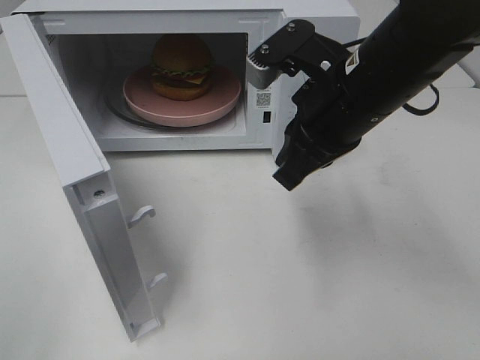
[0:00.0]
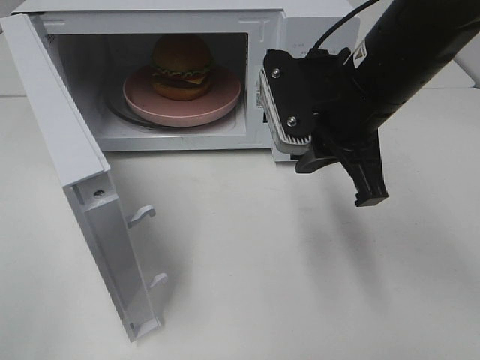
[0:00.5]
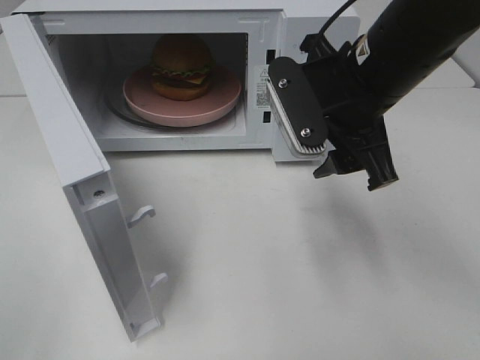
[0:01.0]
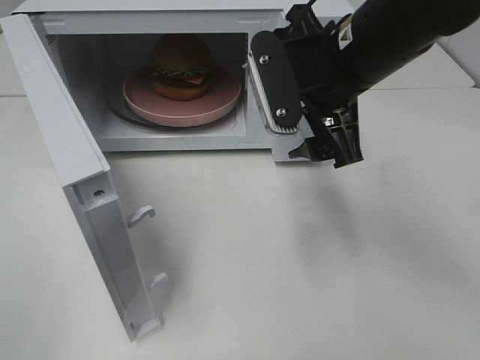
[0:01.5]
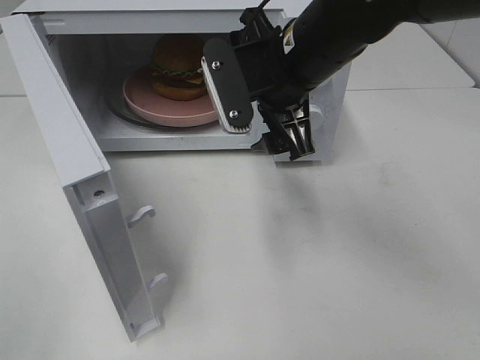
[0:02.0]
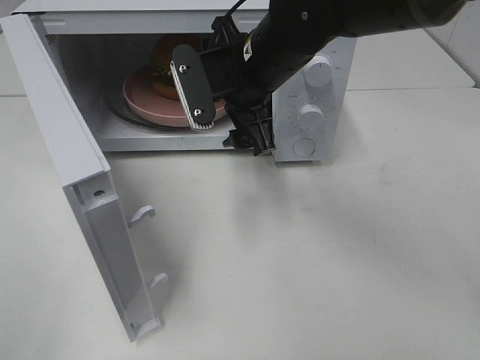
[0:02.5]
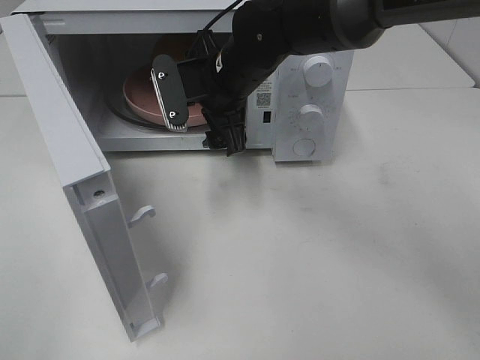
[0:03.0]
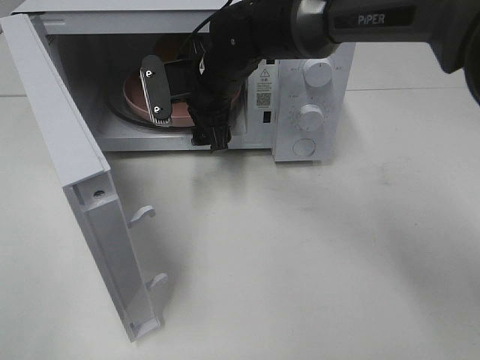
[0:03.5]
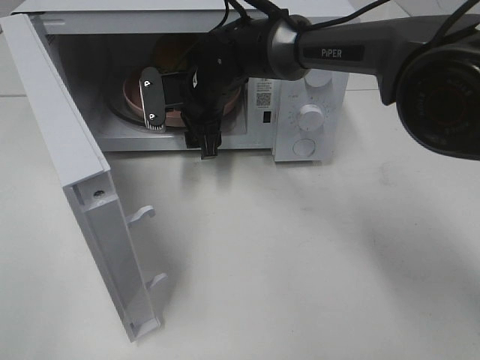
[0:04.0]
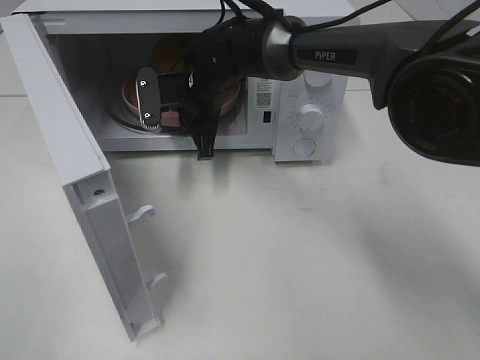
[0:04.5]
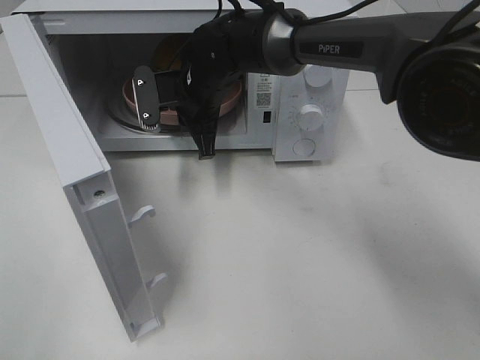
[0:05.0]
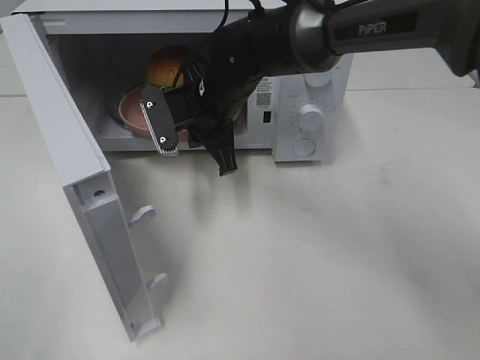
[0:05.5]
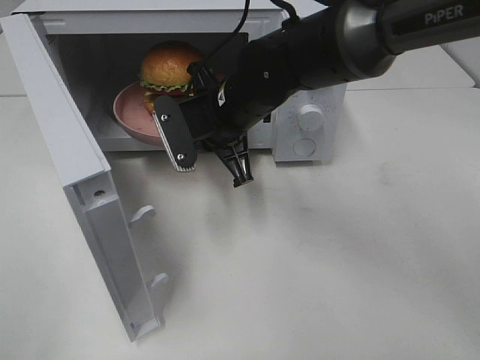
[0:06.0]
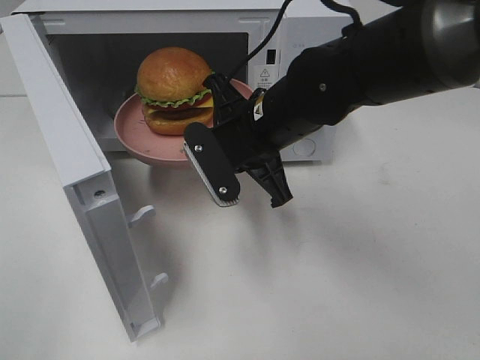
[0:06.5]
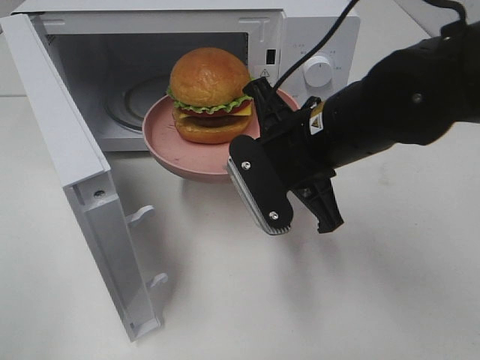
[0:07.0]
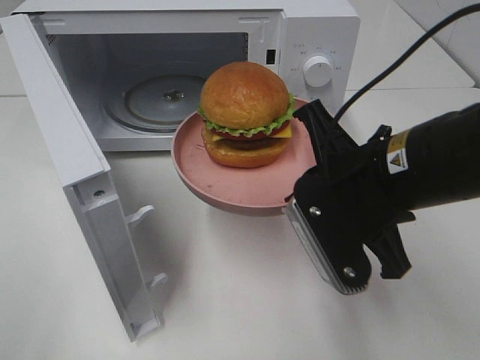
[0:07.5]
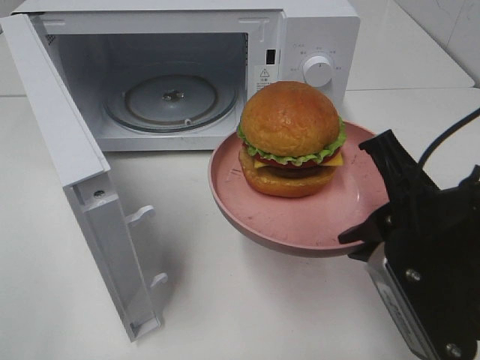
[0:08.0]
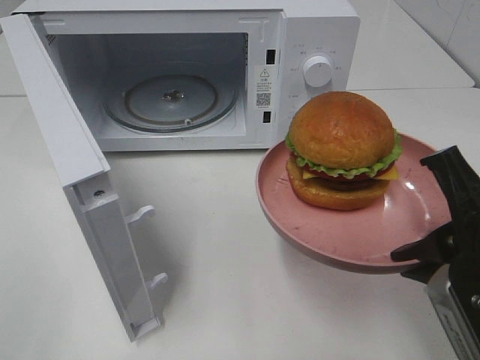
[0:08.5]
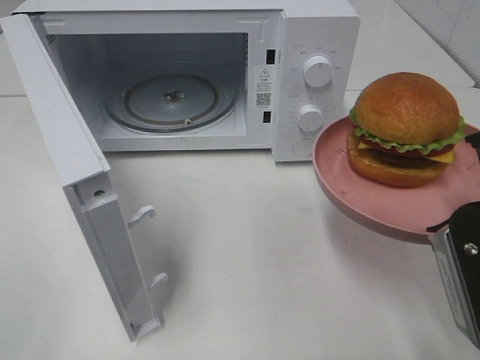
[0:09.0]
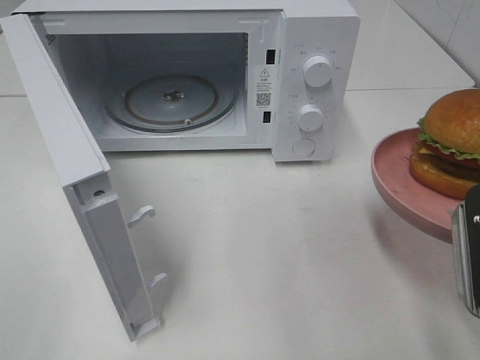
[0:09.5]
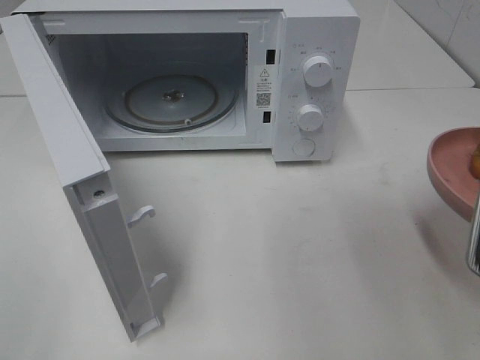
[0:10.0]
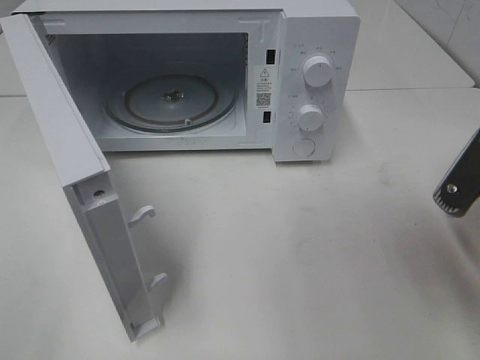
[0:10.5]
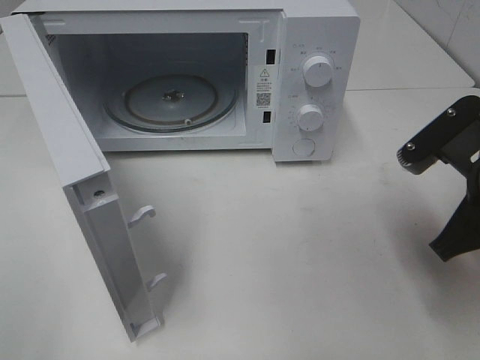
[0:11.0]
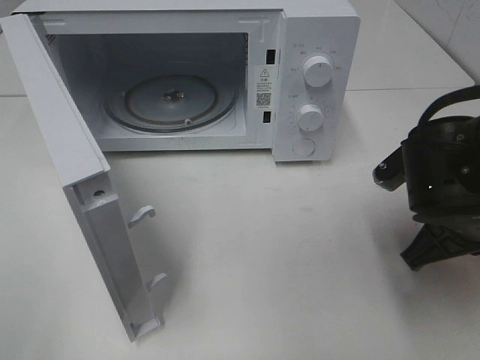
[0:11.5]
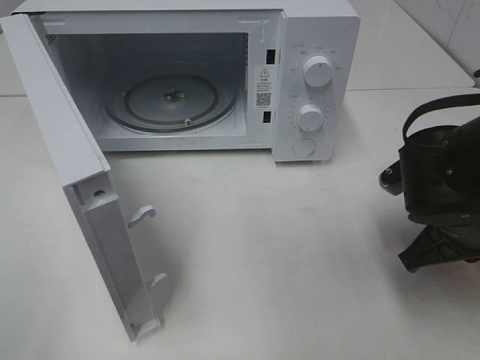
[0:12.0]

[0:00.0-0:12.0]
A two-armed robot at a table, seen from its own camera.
Task of the whole recording: Heat the burger.
Step, 0:00.0 to 0:04.5: Right hand: grab the plate with the hamburger.
0:00.0 to 0:02.0: The right gripper changes place by about 5 cm, and opens up.
0:02.0 to 0:04.0: The right gripper goes some 20 cm forward, downward and to the left.
0:04.0 to 0:06.0: The right gripper travels backward by about 10 cm, and closes up.
0:06.0 to 0:08.0: The right gripper is displaced backward and to the right by some 25 cm.
0:08.0 to 0:10.0: The right gripper shifts some 5 cm to the right.
0:10.0 to 0:12.0: The right gripper shifts about 15 cm forward and downward.

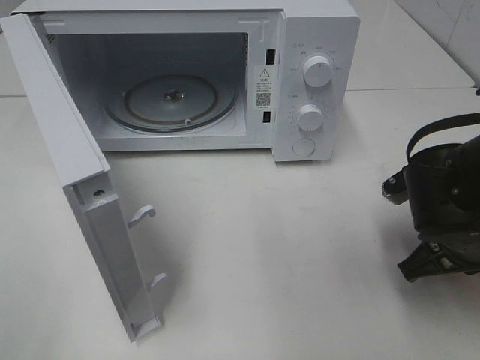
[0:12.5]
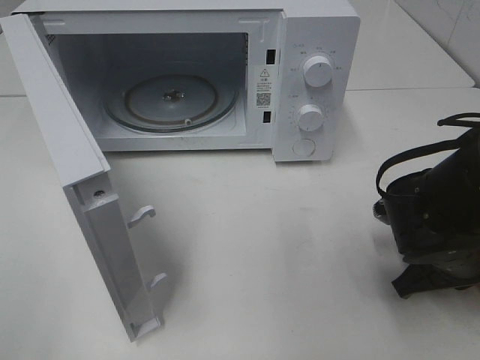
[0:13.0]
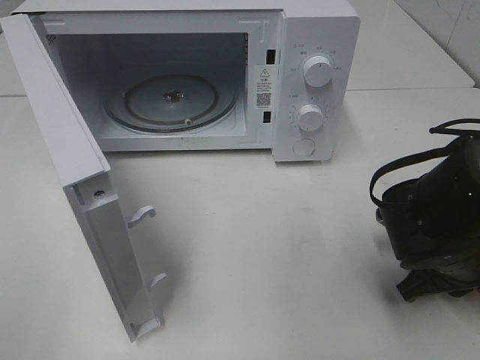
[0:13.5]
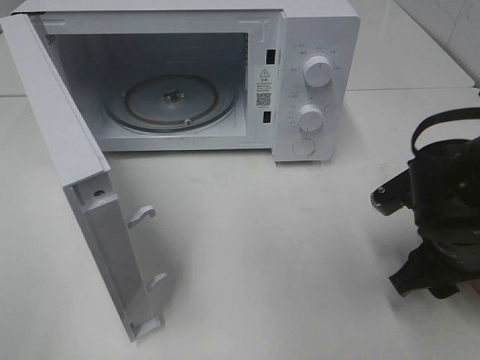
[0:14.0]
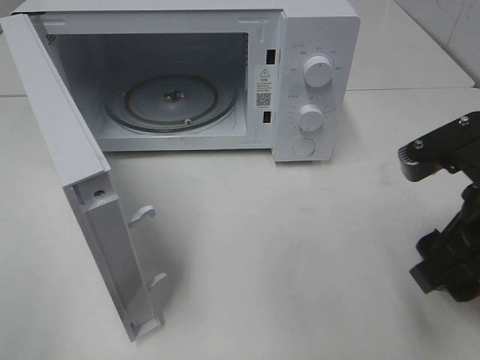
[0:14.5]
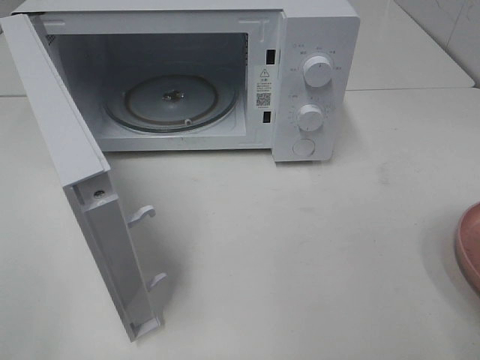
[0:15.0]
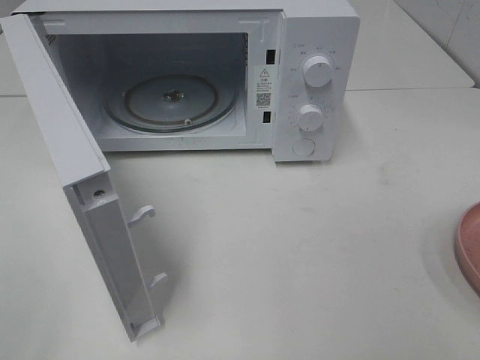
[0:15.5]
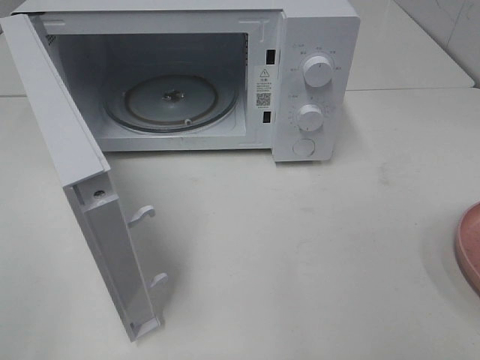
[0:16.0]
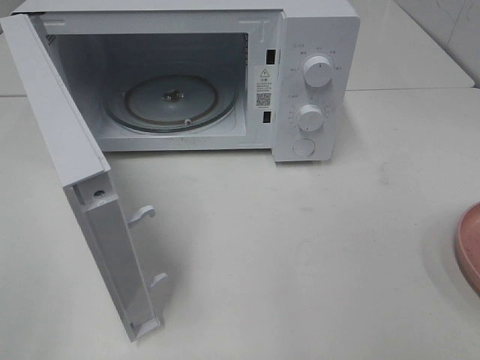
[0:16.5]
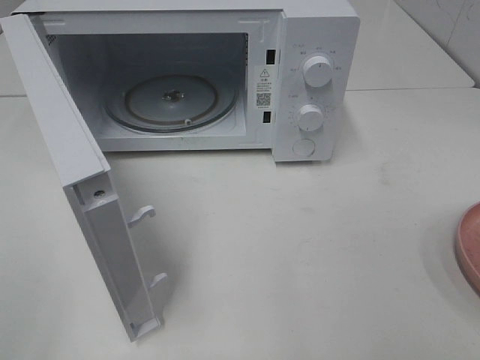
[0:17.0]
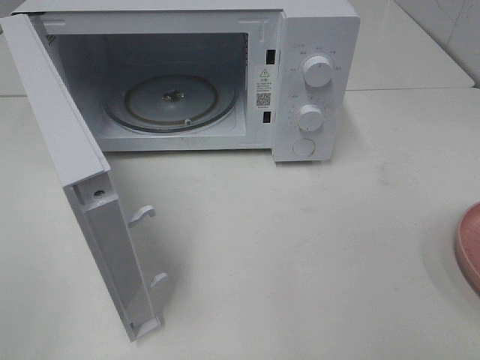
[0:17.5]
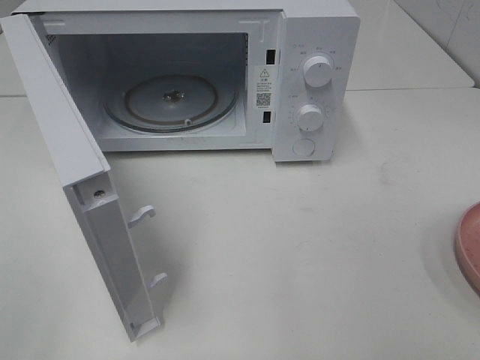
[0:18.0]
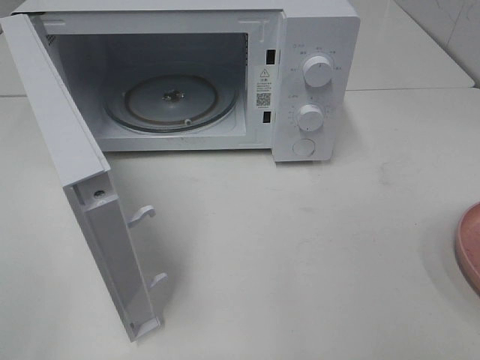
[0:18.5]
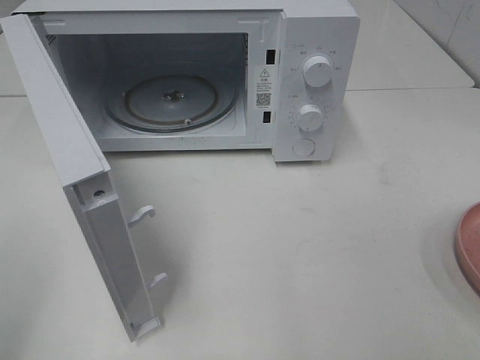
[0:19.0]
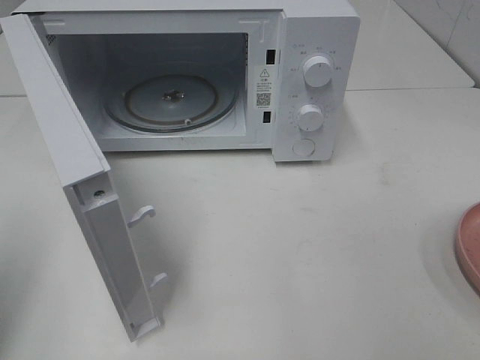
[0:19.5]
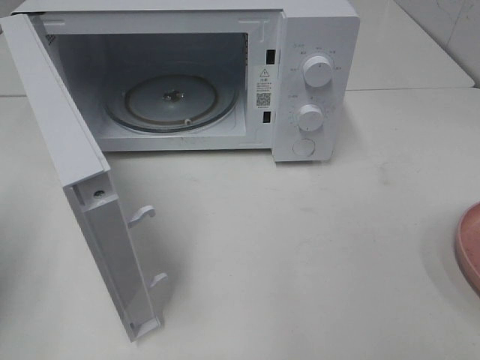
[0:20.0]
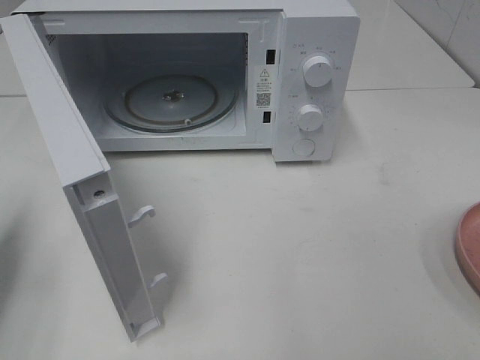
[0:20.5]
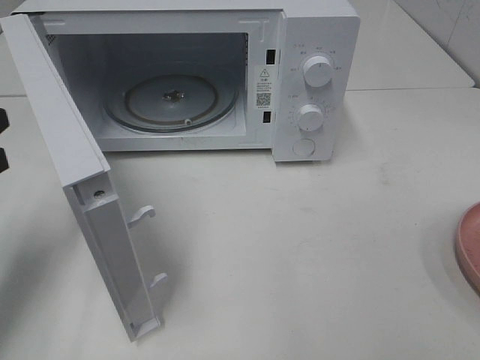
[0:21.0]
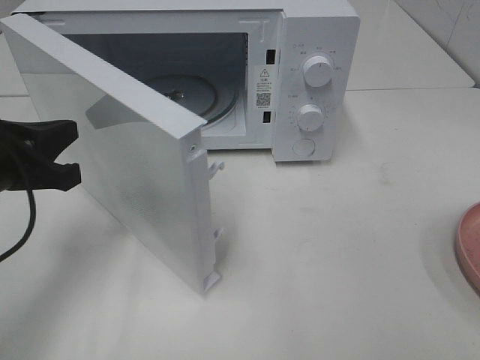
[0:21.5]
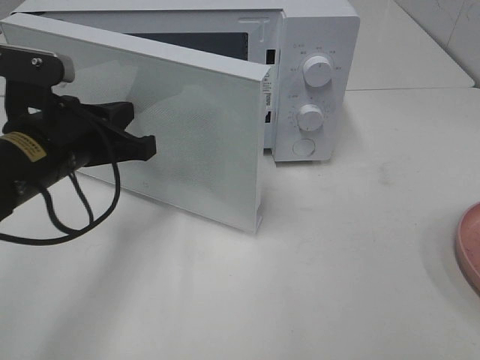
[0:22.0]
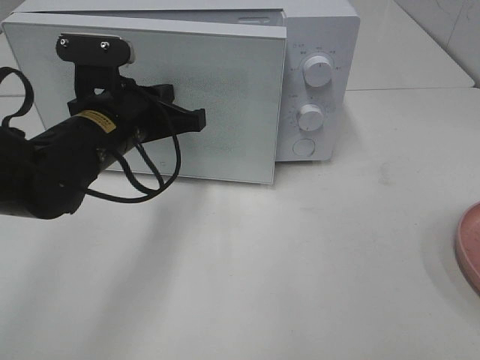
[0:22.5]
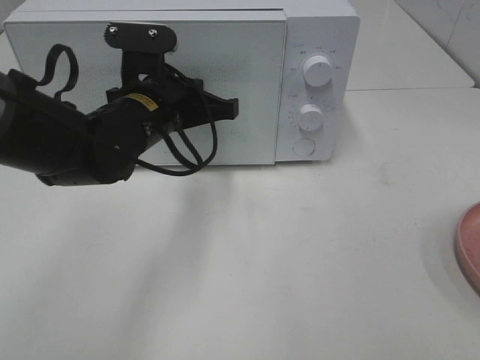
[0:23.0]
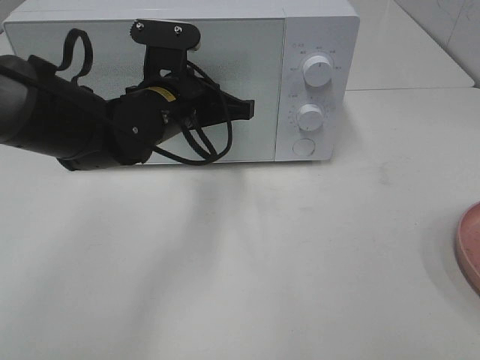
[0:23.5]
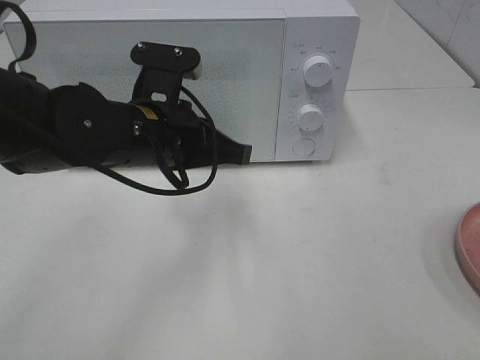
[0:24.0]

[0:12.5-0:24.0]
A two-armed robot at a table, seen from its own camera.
Task of the whole recording: Heat the burger.
Step, 0:14.0 to 0:24.0: Left hand: close the microwave door.
0:12.5 to 0:14.5: The right gripper moves upward and backward, roughly 10 cm, and opens up.
0:14.5 to 0:16.5: The right gripper is displaced backward, to the right and upward by some 20 cm.
0:16.5 to 0:18.5: The two grippers keep their place.
0:18.5 to 0:20.0: The left gripper goes approximately 15 cm forward, and closes up.
0:20.0 to 0:22.0: The left gripper travels to the right and forward by about 20 cm.
0:22.0 to 0:24.0: The left gripper travels to the right by some 10 cm.

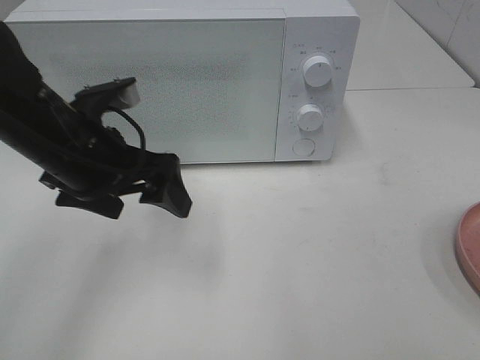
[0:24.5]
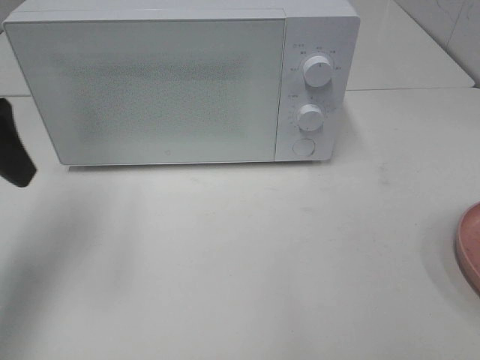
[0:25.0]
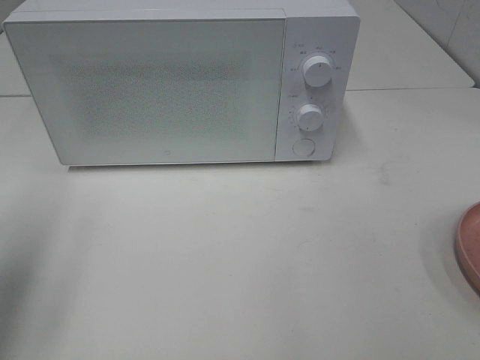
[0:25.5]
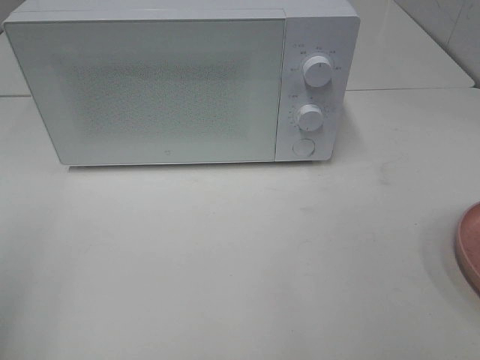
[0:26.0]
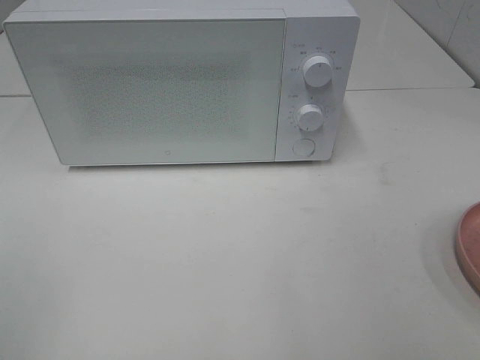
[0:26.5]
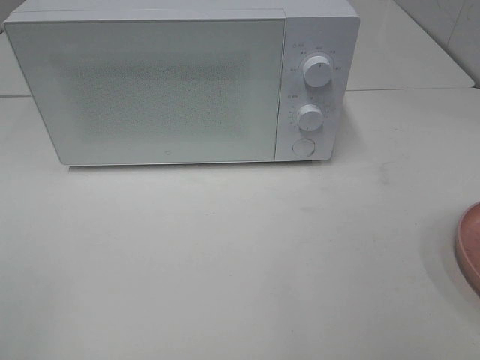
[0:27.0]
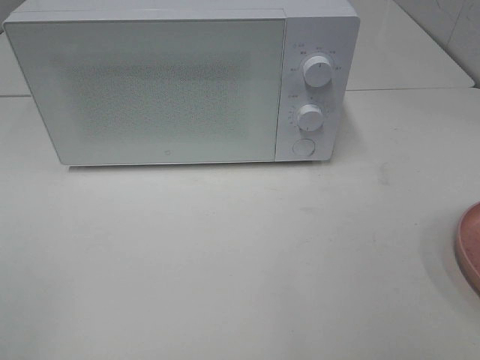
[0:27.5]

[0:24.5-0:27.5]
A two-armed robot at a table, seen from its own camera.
Task of the whole recording: Heat the burger.
0:24.5 to 0:26.0: The left gripper shifts approximately 25 cm backward, to the left and upward.
